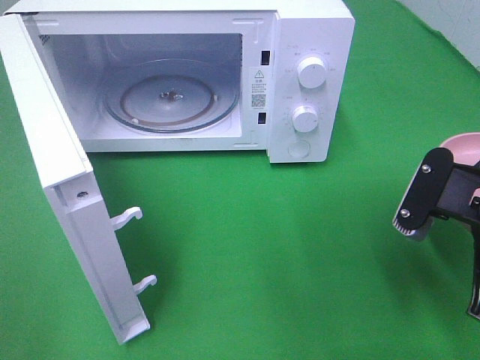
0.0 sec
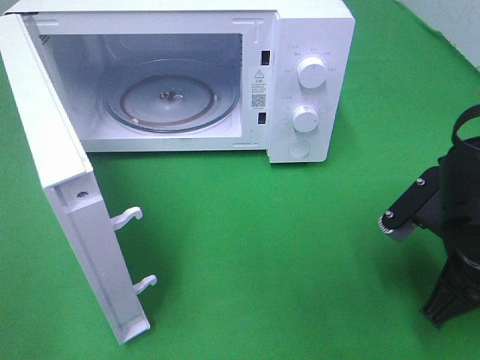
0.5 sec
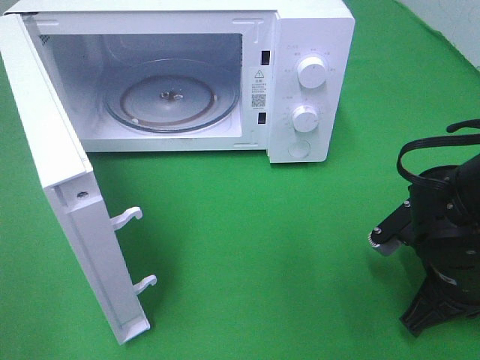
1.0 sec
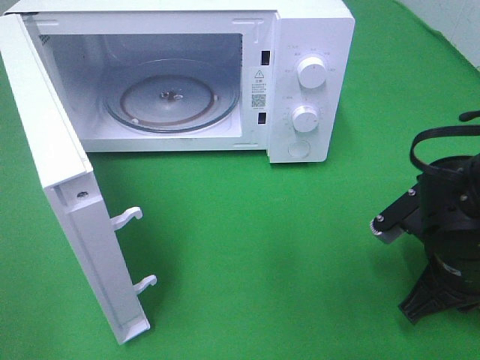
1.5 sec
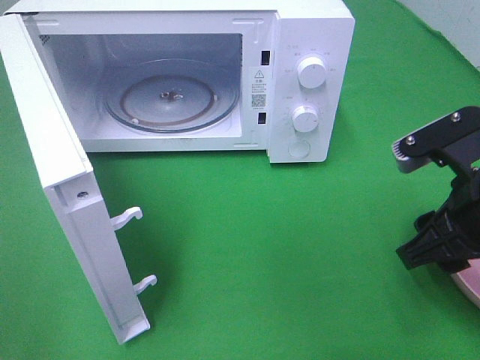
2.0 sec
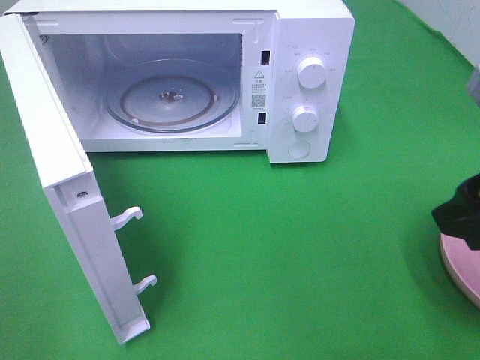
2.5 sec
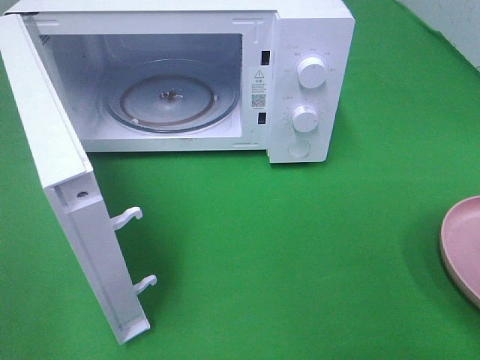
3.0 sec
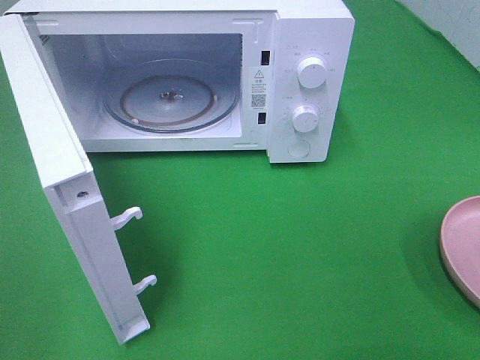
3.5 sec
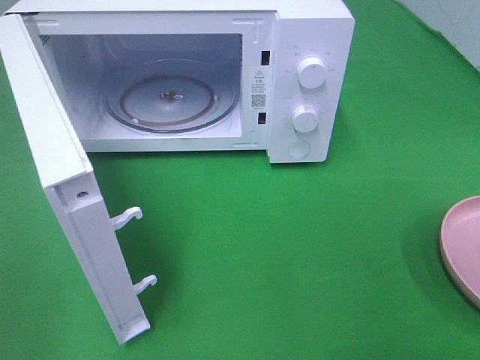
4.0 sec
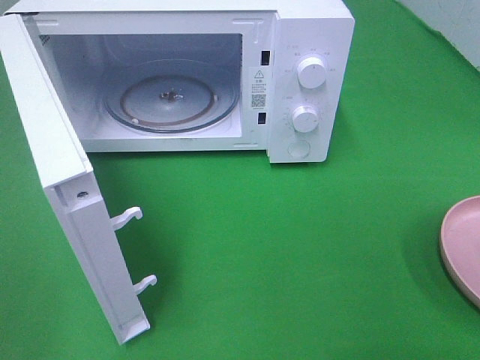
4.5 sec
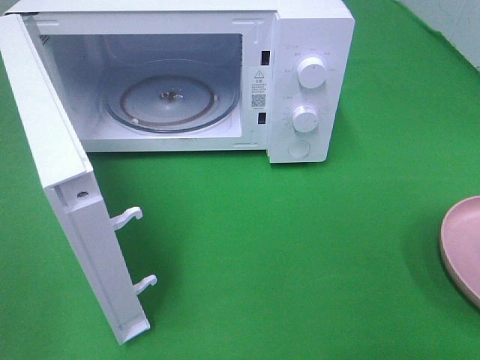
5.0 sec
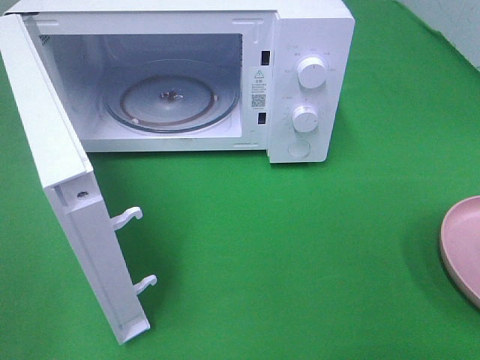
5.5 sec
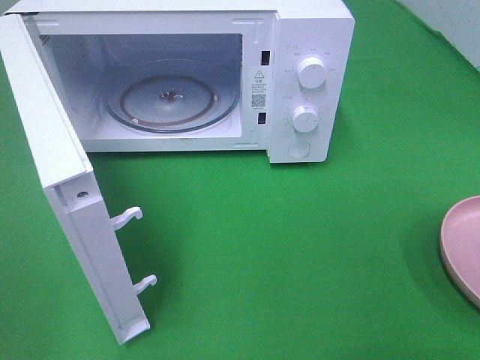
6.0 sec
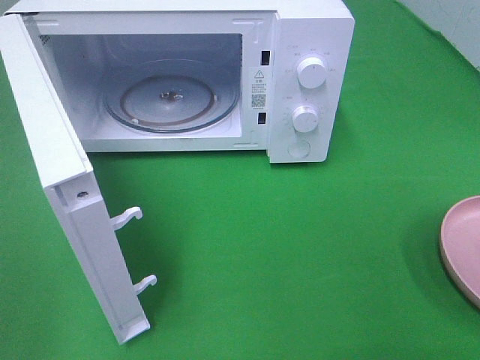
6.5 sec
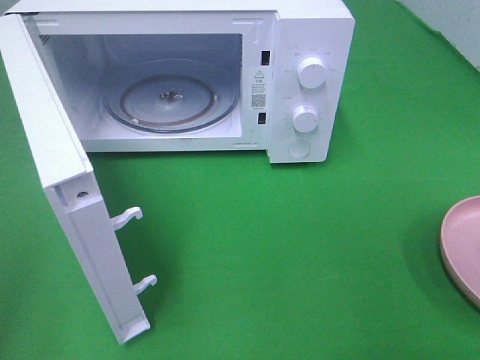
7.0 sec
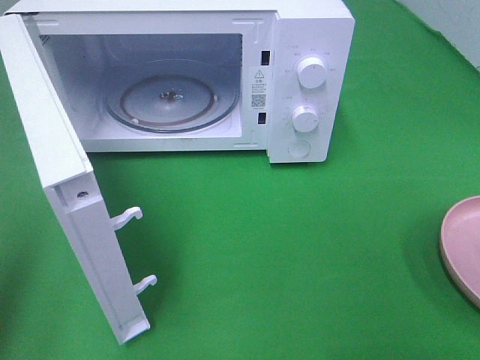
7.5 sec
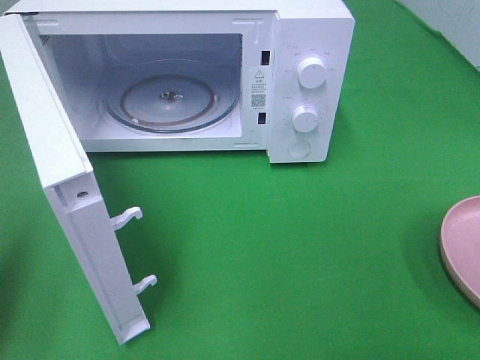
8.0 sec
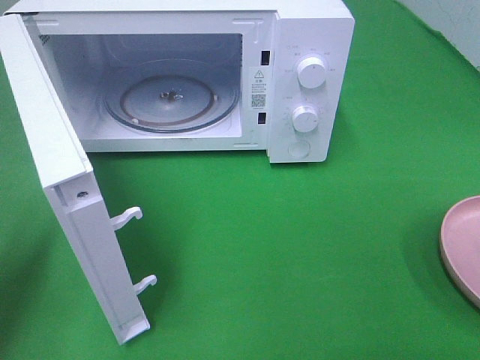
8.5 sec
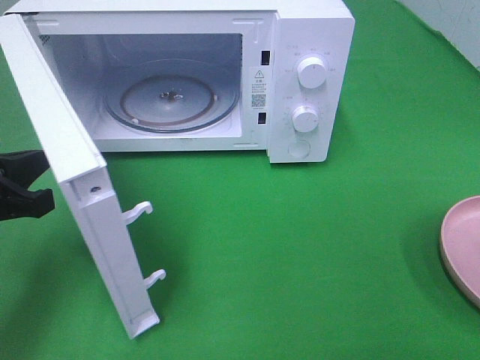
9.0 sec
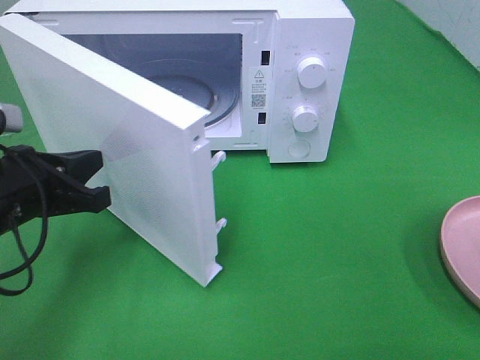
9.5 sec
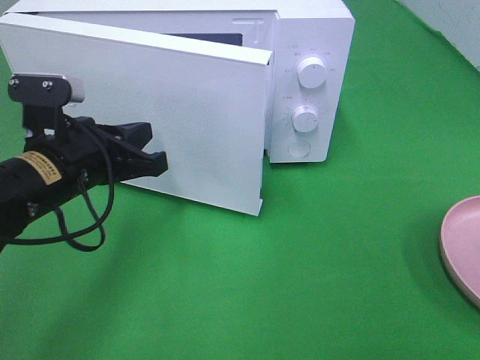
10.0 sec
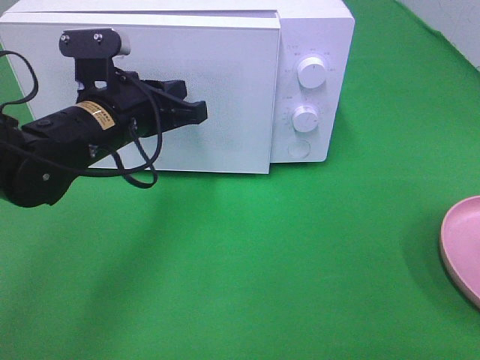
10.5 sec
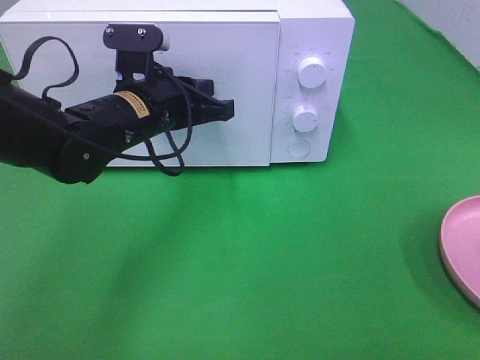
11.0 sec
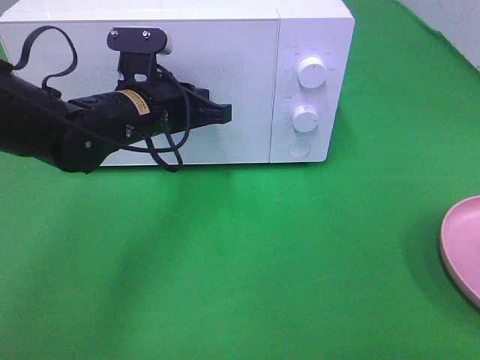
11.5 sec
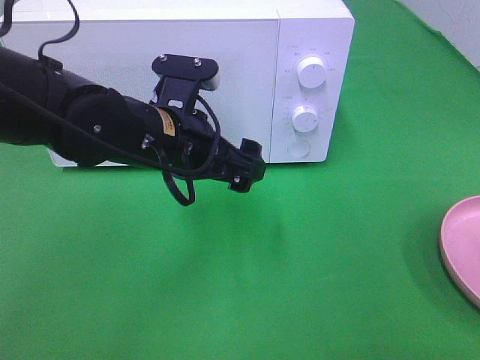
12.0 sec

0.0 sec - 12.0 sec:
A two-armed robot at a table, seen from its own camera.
Task of the whole recording: Heat the burger.
Step, 0.0 sec - 3.5 sec: Right hand: place the plate on the table.
0.0 sec - 2.0 sec: The right gripper reaches roughly 10 cm downward, then returns, and opens.
2.0 sec - 4.0 sec: The right gripper travels backward, to the right and upward by about 20 cm.
6.0 sec - 8.0 sec: The left gripper moves forward, some 15 cm, and closes its fingers.
8.0 sec - 10.0 sec: The left gripper heads to the right, forward and downward, covering roughly 20 cm.
10.0 sec - 12.0 sec: The left gripper goes about 10 cm to the right, and opens.

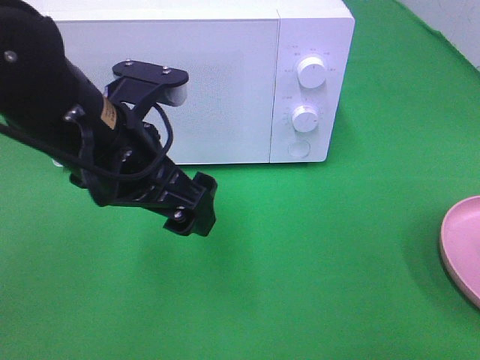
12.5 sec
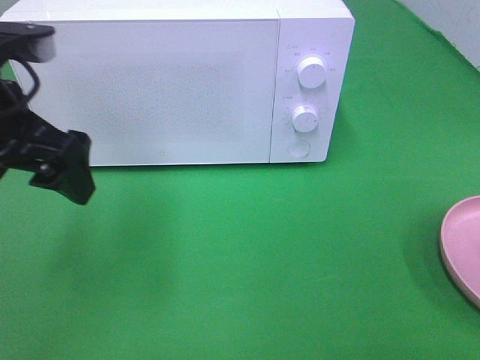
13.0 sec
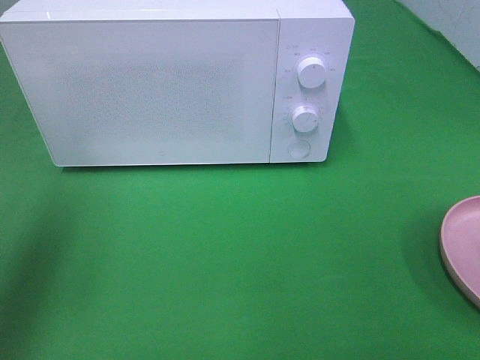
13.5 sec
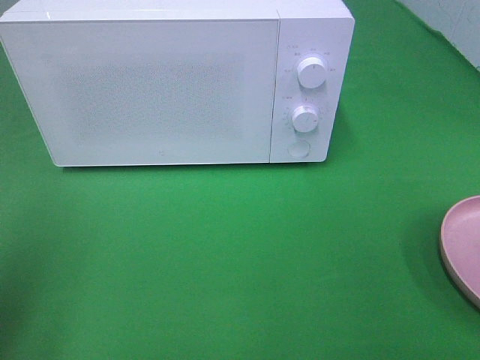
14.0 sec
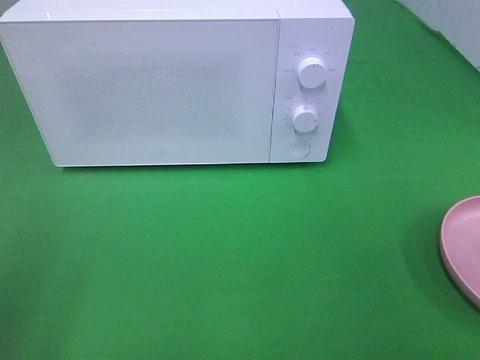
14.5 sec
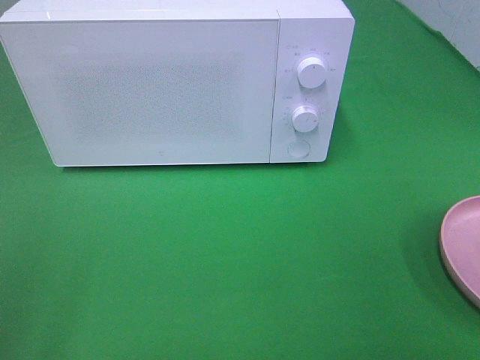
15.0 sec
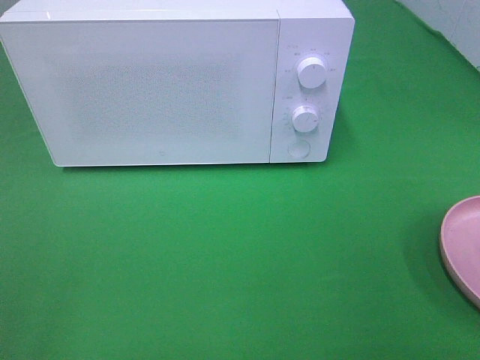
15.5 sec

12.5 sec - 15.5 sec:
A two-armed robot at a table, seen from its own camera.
Task of the whole recording: Heat the burger.
12.5 sec - 14.0 sec: The left gripper is displaced to the left and backward by about 20 cm.
14.0 sec - 15.5 sec: The left gripper goes approximately 15 cm backward.

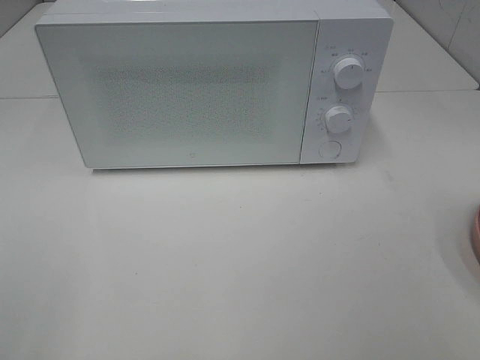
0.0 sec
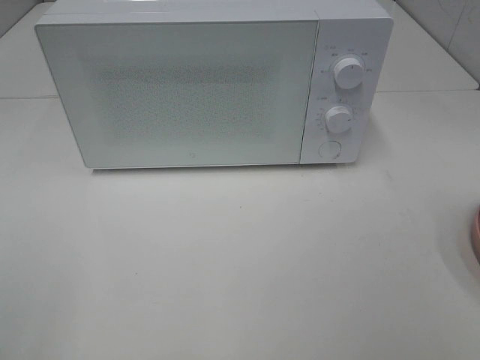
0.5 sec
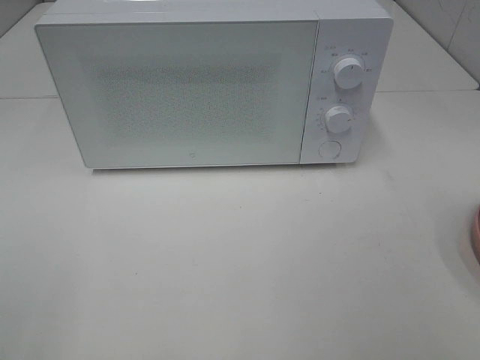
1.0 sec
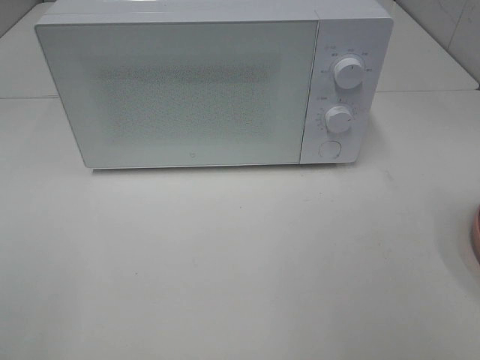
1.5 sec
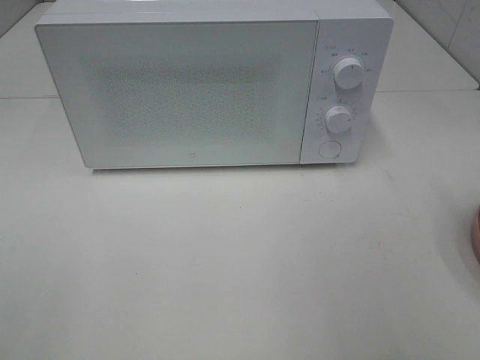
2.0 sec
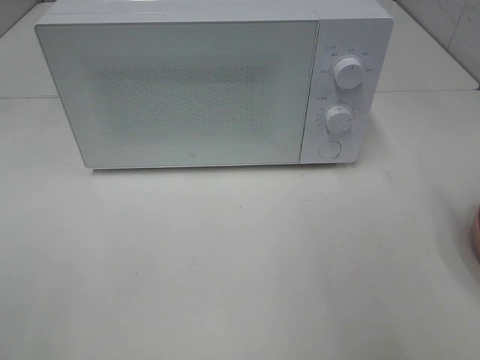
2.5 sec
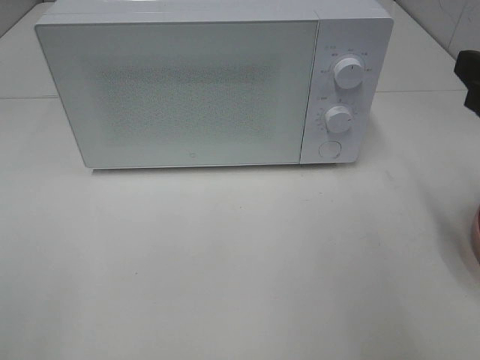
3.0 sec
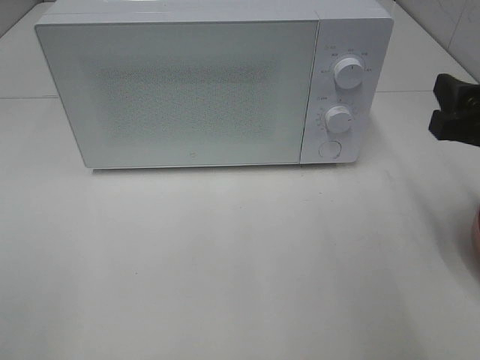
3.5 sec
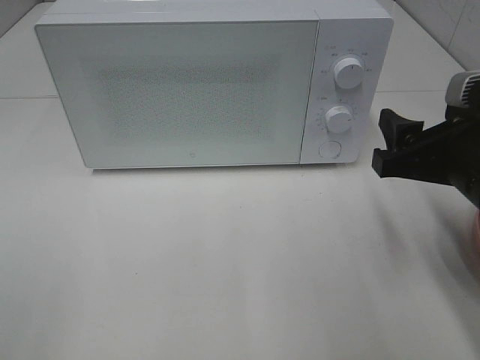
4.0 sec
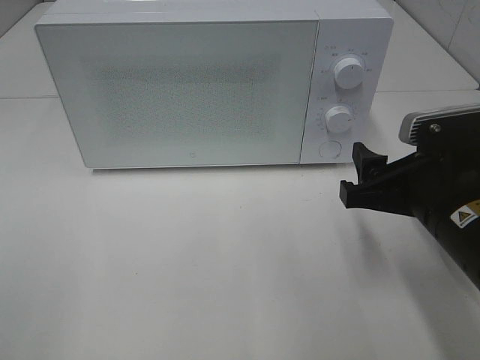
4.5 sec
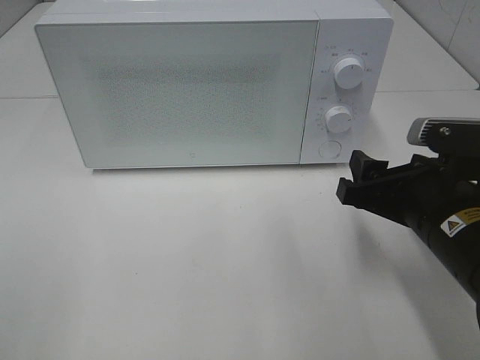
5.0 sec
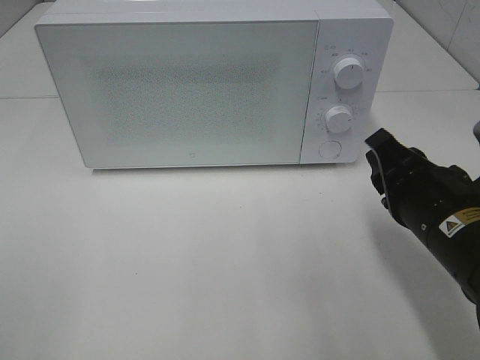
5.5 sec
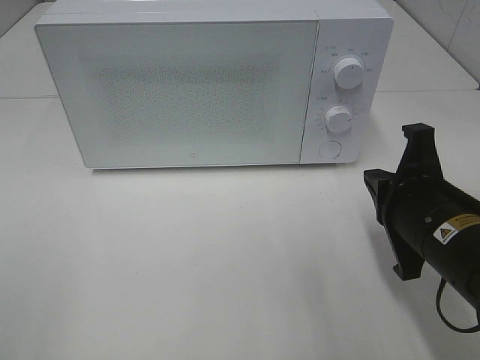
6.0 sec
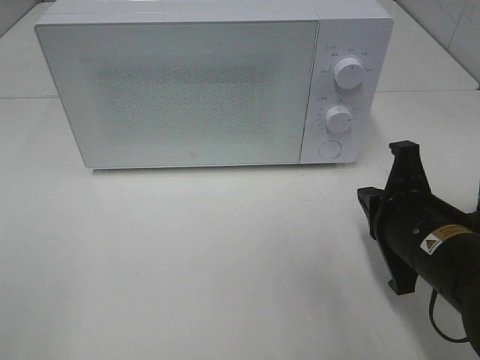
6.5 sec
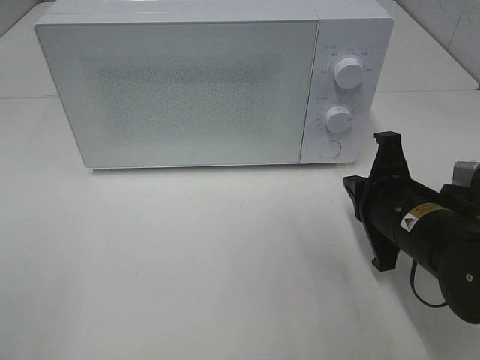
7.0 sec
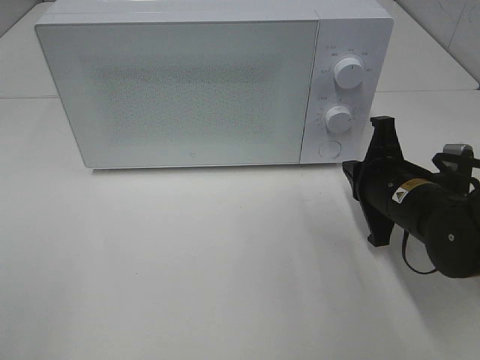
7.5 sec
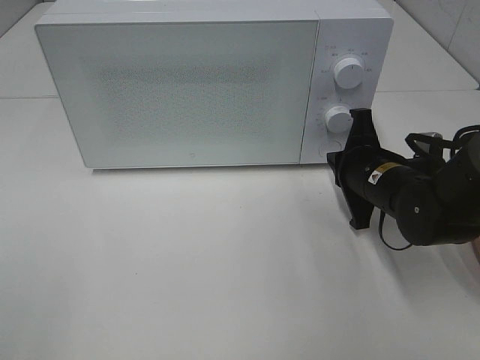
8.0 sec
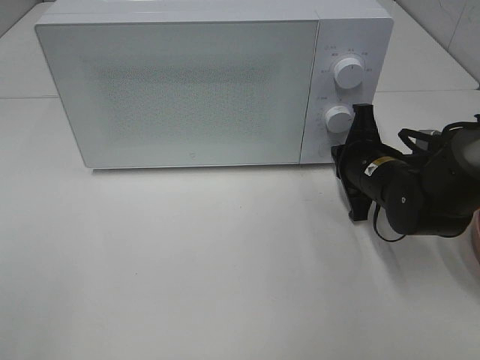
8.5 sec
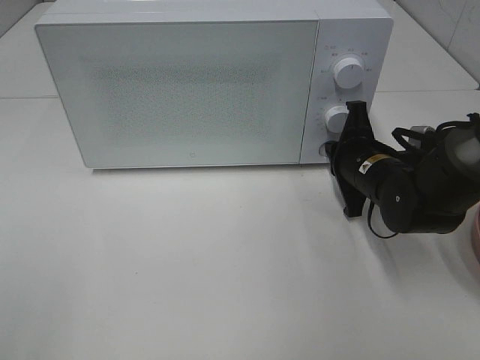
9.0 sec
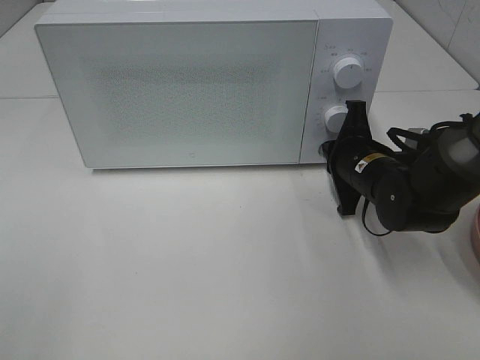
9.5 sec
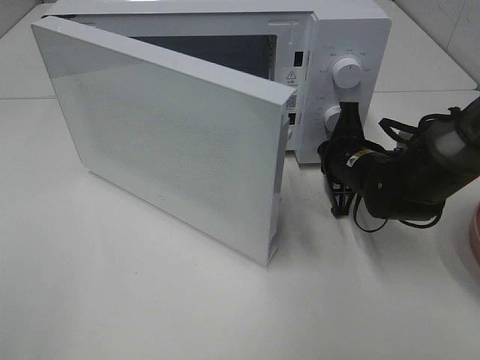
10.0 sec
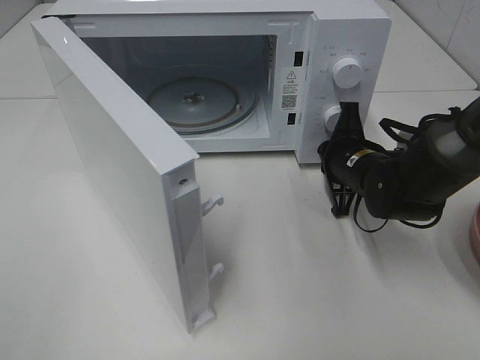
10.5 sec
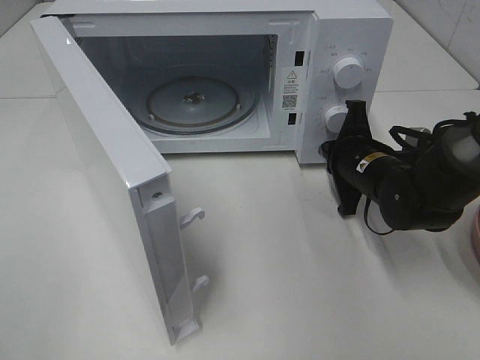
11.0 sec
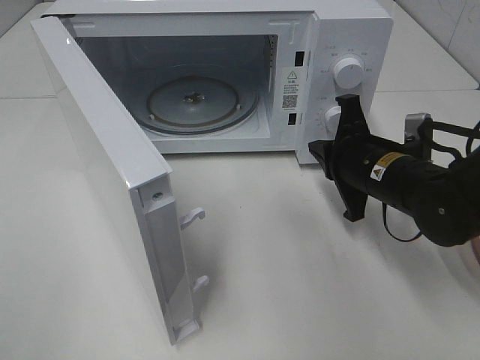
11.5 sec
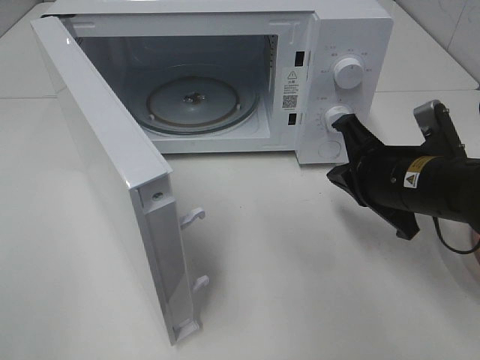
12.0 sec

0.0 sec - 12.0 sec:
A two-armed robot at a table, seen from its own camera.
Task of the whole recording: Heat the burger.
Step, 0.0 sec - 11.0 sec: Right hand: press the switch.
2.0 sec - 4.0 sec: The right gripper goes some 15 cm downward, forward and to the left.
4.0 sec - 6.0 sec: The right gripper shifts about 5 cm downward, and closes.
6.0 sec - 8.0 sec: The right gripper shifts about 15 cm forward and downward.
10.0 sec - 12.0 sec: The right gripper travels backward and upward by some 10 cm.
